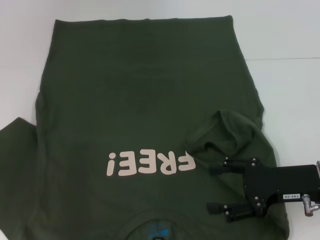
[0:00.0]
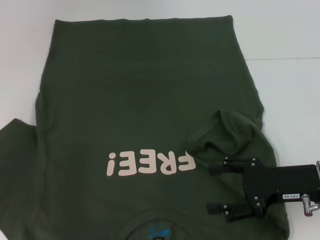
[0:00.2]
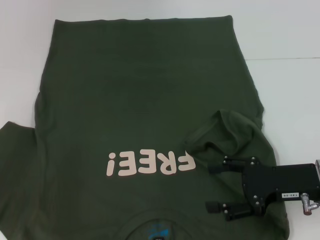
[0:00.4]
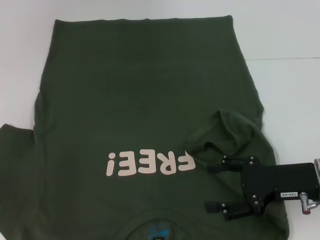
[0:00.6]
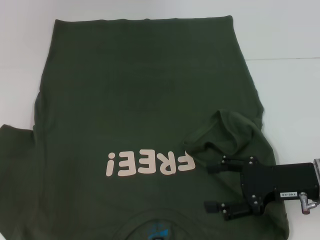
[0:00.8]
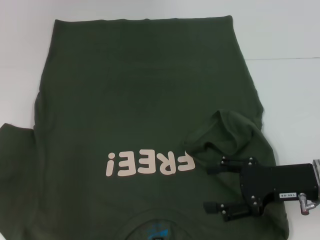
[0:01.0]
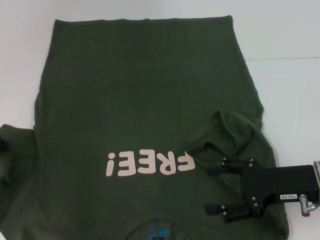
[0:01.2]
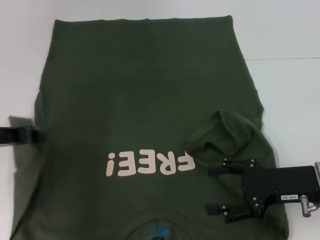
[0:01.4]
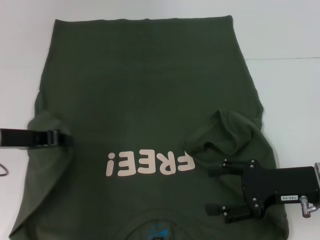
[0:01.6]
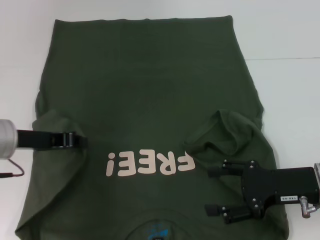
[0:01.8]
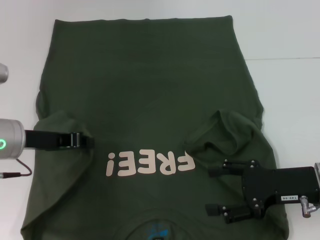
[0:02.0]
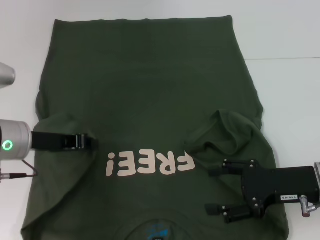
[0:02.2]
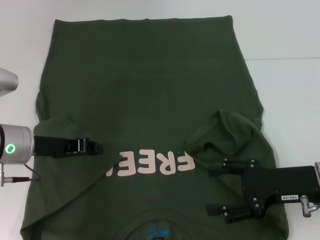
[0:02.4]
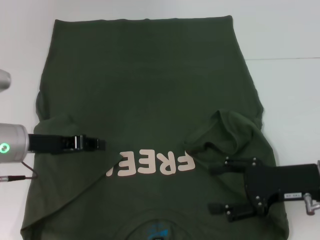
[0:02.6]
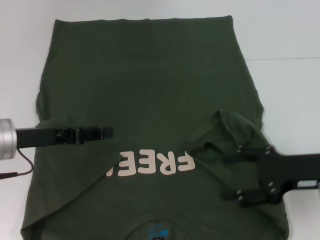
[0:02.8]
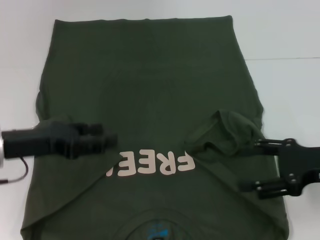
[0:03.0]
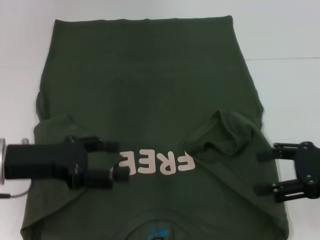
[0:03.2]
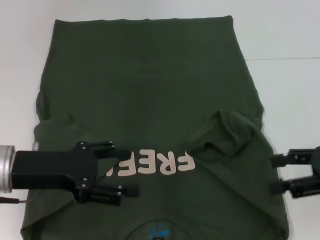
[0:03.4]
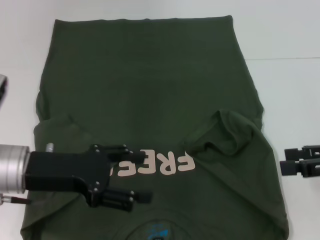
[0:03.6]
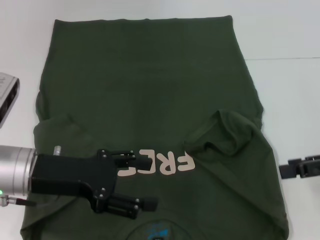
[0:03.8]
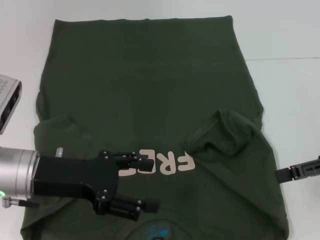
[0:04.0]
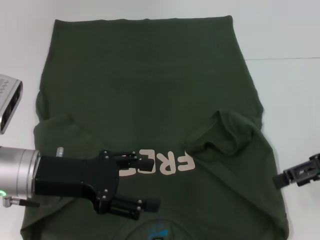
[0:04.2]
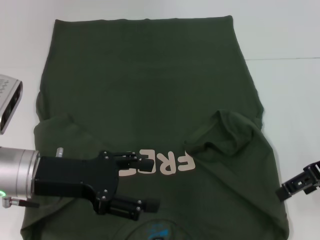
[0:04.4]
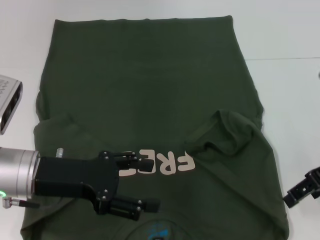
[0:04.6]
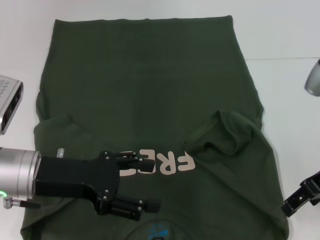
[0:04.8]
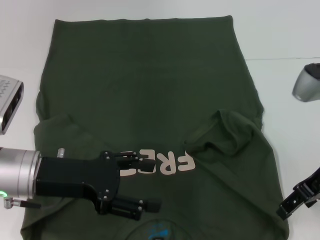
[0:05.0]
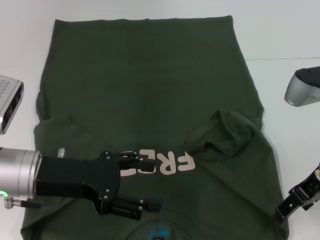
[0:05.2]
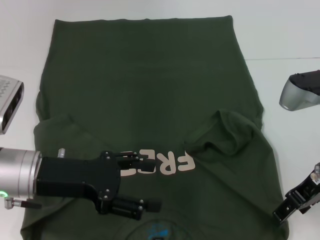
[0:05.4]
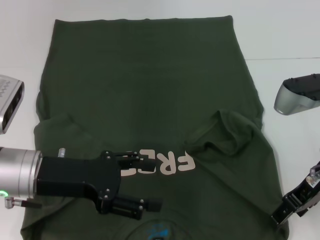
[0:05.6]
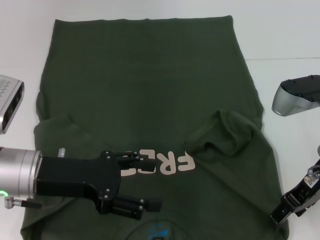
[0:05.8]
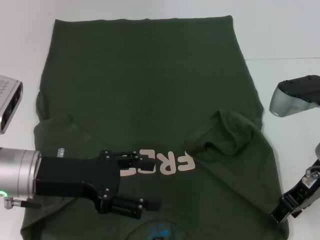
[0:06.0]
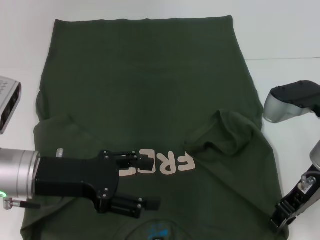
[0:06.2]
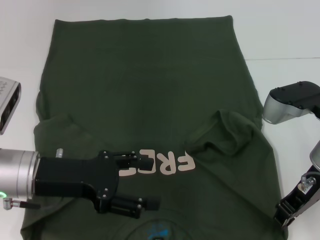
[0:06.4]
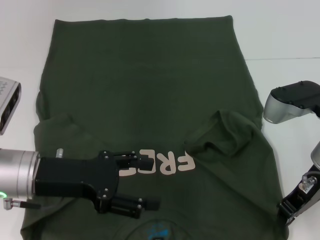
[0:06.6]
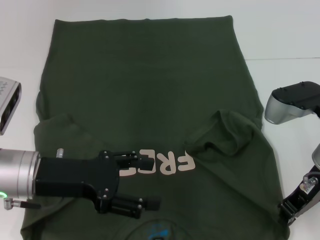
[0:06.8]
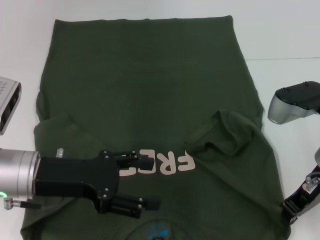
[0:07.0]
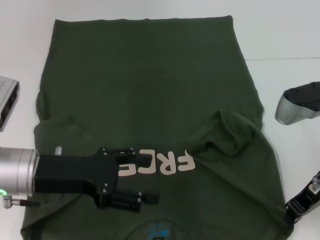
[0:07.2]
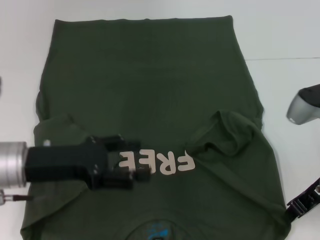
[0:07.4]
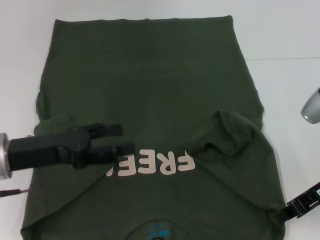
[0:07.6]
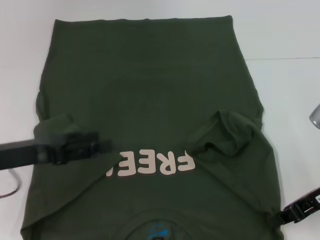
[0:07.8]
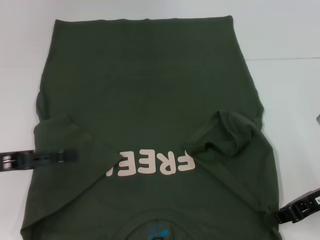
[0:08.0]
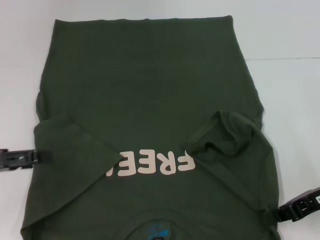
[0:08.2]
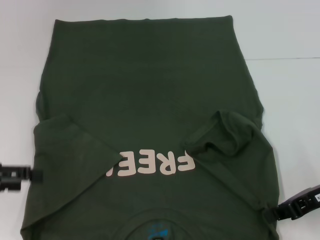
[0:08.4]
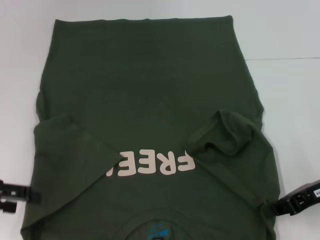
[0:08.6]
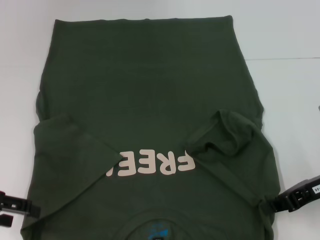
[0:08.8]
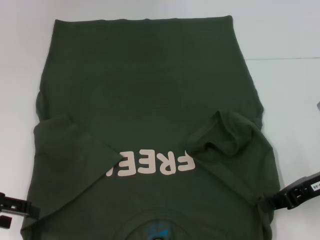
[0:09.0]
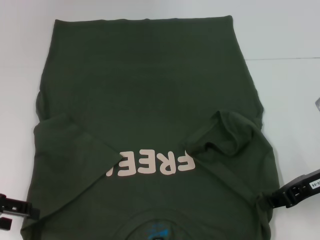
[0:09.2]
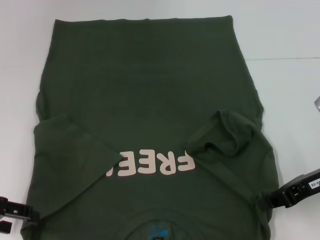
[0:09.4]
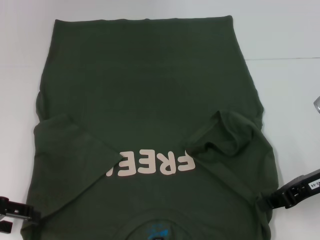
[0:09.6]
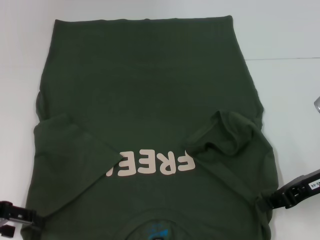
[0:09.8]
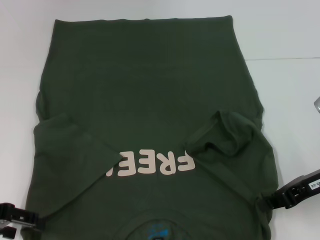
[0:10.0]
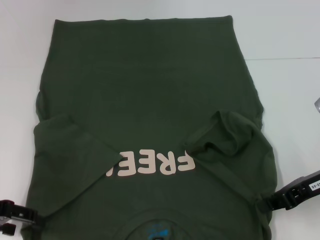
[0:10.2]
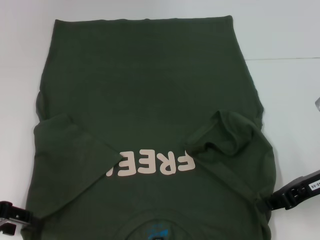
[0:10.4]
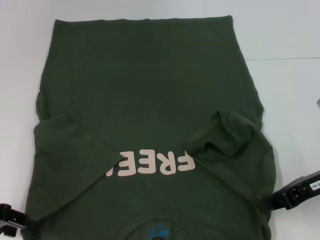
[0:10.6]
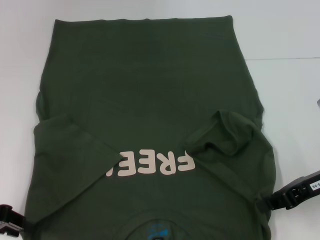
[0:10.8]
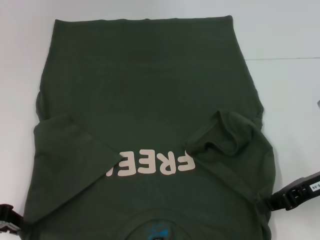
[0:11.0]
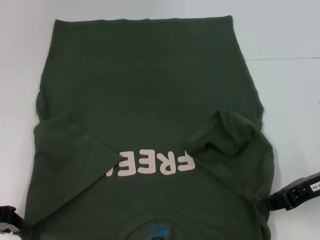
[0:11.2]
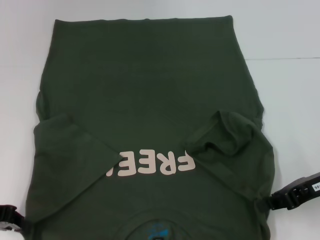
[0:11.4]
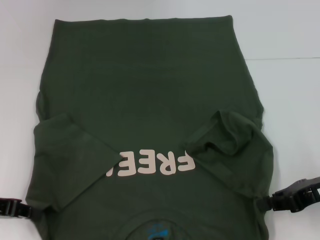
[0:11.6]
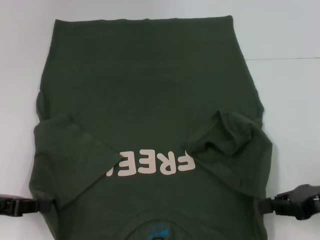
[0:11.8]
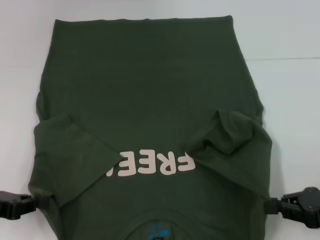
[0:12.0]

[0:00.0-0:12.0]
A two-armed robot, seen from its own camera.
Step, 0:00.0 to 0:03.0: Fold the bottom left sleeve with your left hand.
Step, 0:03.2 to 0:07.8: Grab the bottom right corner with your right hand.
Step, 0:08.0 to 0:11.6: Grab the bottom left corner with your left hand.
0:00.0 to 0:01.6: The left gripper heads to the right, covering roughly 10 cm.
0:01.6 to 0:03.0: The right gripper shifts by roughly 5 cm. Meanwhile the left gripper opens.
0:03.0 to 0:04.4: The left gripper shifts by some 5 cm; the right gripper heads upward, covering approximately 5 cm.
0:04.4 to 0:06.0: The right gripper is displaced to the left by some 5 cm.
0:06.0 to 0:07.6: The right gripper closes up.
0:07.6 to 0:09.0: The left gripper moves to the left, about 10 cm.
0:09.0 to 0:10.4: The grippers stay close to where they were, moving slightly.
0:10.4 to 0:12.0: The left gripper closes up, while the right gripper is displaced backward by about 5 cm.

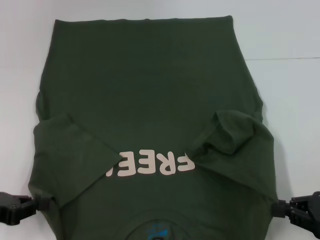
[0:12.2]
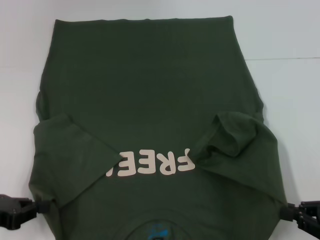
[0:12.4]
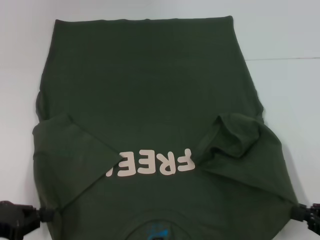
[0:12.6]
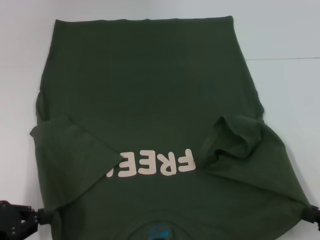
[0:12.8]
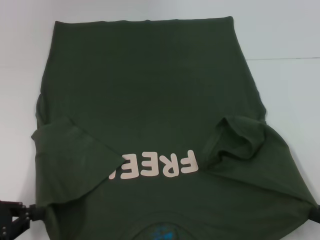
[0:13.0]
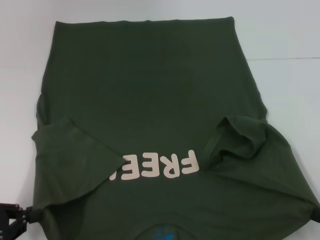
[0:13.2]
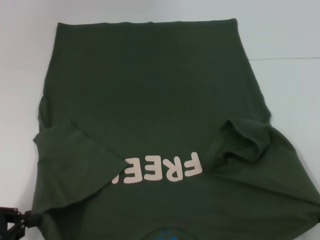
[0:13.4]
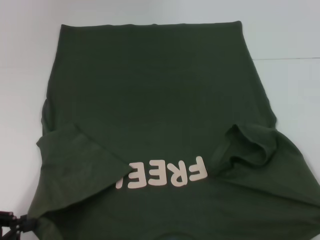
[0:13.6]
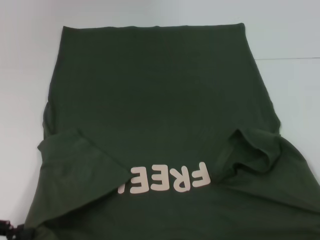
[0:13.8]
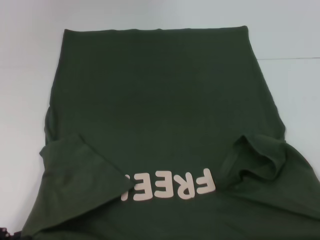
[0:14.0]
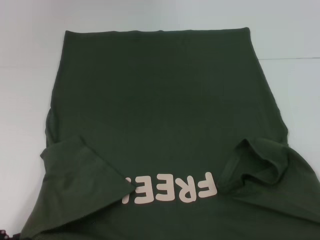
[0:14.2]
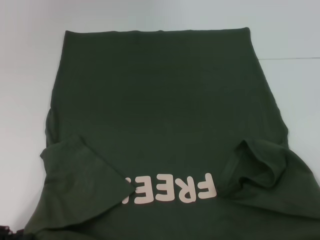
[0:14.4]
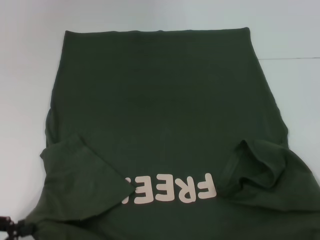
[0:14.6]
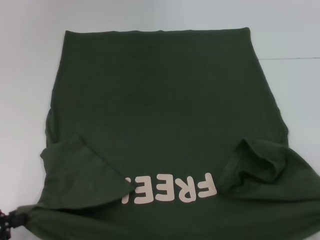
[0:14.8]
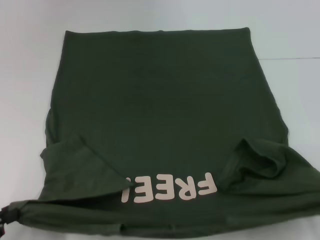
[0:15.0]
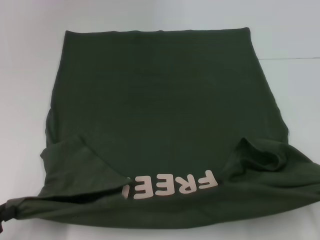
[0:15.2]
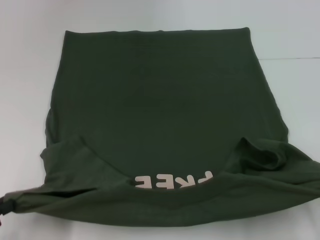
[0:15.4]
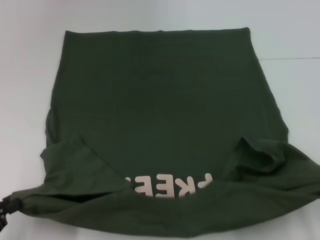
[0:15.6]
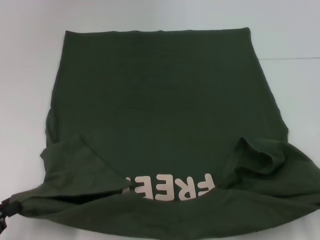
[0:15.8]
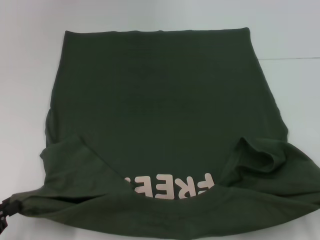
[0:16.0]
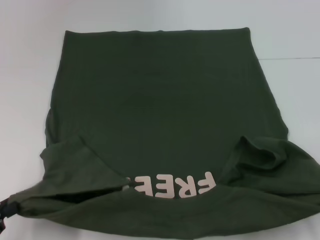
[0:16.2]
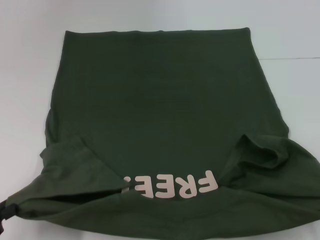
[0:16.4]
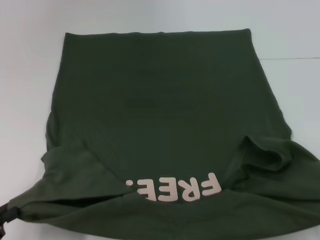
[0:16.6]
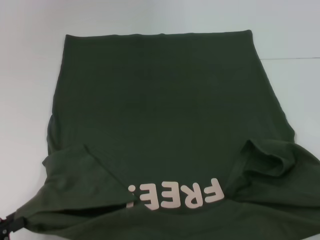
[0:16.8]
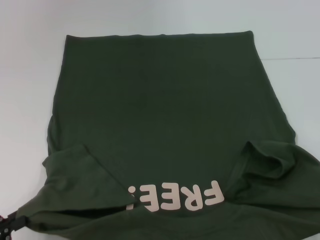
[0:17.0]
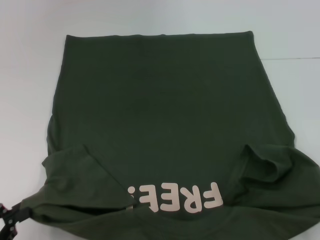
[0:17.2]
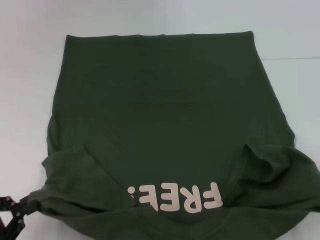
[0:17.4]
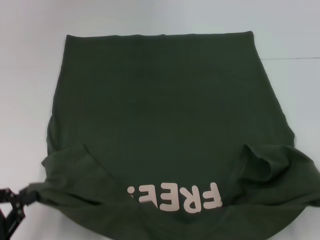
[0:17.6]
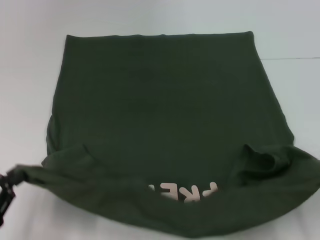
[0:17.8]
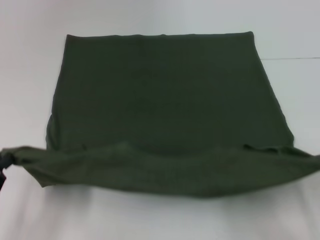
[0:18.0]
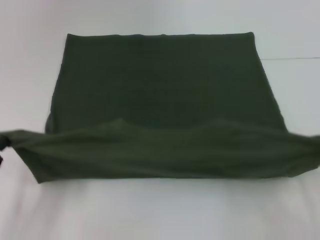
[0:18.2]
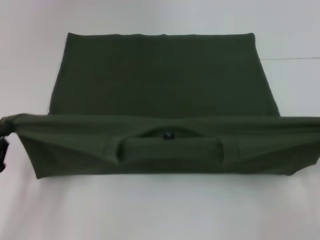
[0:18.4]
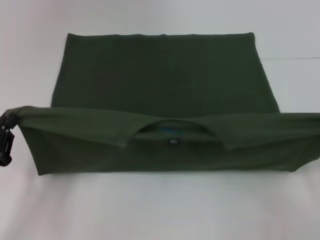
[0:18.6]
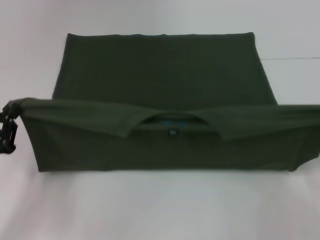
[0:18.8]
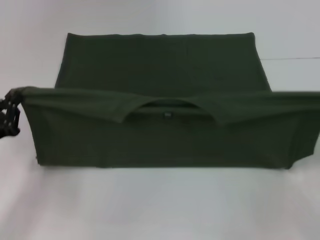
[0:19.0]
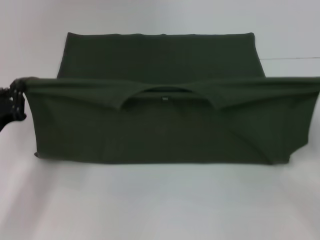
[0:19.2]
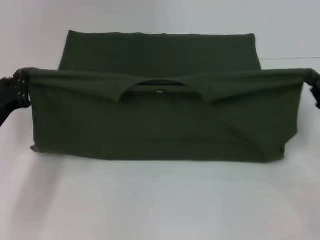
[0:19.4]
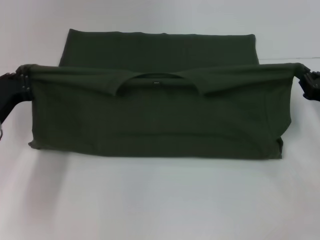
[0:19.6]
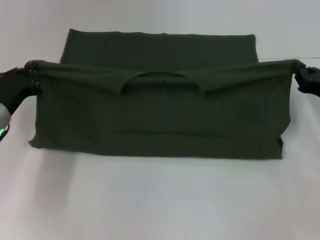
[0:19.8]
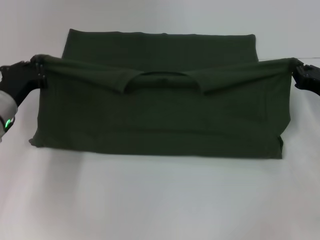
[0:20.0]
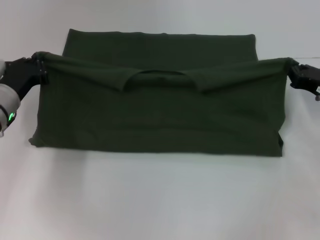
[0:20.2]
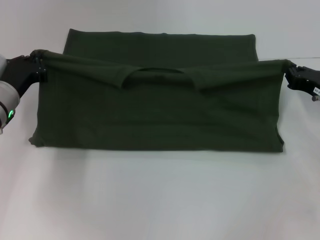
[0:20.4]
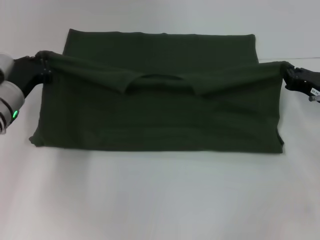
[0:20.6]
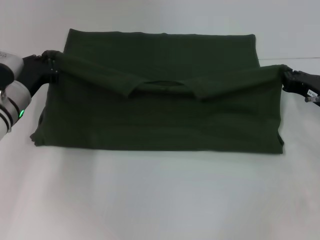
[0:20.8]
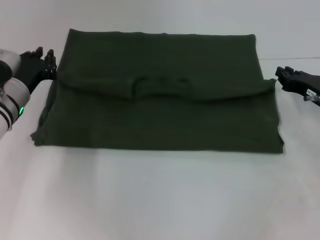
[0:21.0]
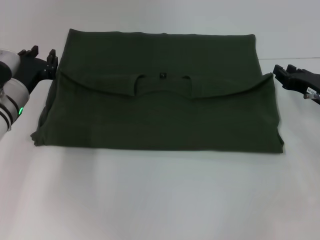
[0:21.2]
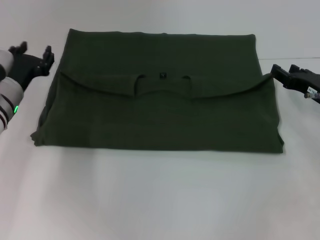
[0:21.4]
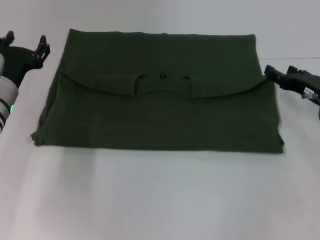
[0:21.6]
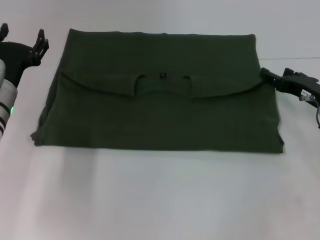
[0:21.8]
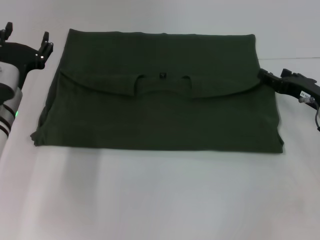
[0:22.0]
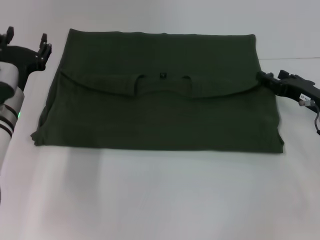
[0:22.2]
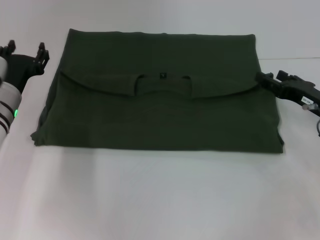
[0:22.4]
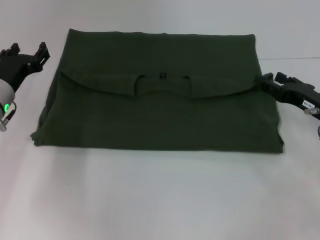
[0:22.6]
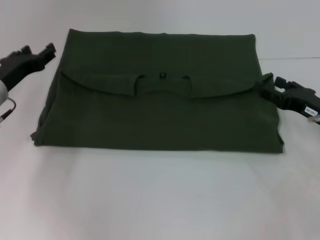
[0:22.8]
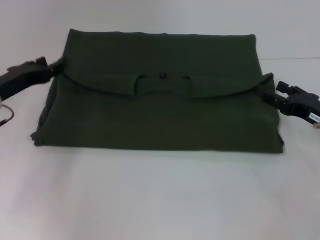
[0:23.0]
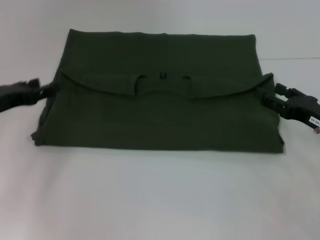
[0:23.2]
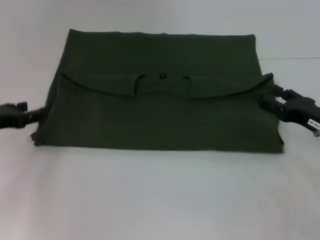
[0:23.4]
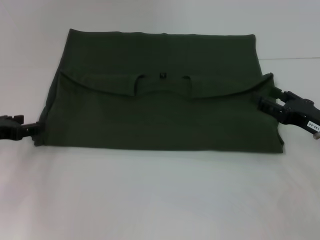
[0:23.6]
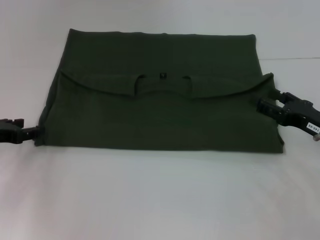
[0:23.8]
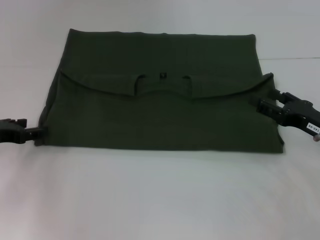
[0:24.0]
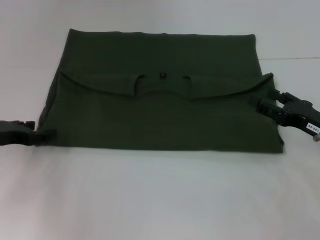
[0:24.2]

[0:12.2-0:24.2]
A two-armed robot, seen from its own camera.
Step, 0:12.2 to 0:21.6: Fold the clothes with your left hand.
Step, 0:12.2 to 0:21.6: Fold the clothes with your right hand.
0:12.2 to 0:13.8: The right gripper goes some 10 cm backward, while the left gripper shifts approximately 5 cm backward.
0:13.8 to 0:15.2: The grippers stay close to where they were, moving slightly.
0:15.2 to 0:16.6: The grippers move only a little.
0:16.6 to 0:18.2: The left gripper moves roughly 5 cm. Meanwhile the right gripper is displaced forward by some 10 cm.
0:18.2 to 0:19.8: The two grippers go roughly 20 cm forward.
0:19.8 to 0:21.2: The left gripper changes place by approximately 5 cm.
0:21.2 to 0:22.6: The right gripper opens. The left gripper opens its fingers.
0:22.6 to 0:24.2: The left gripper is displaced to the left by some 5 cm.
